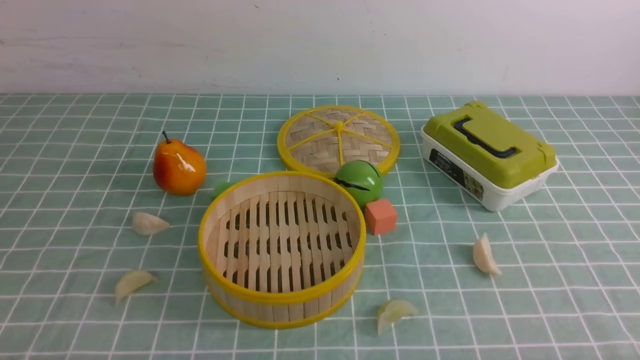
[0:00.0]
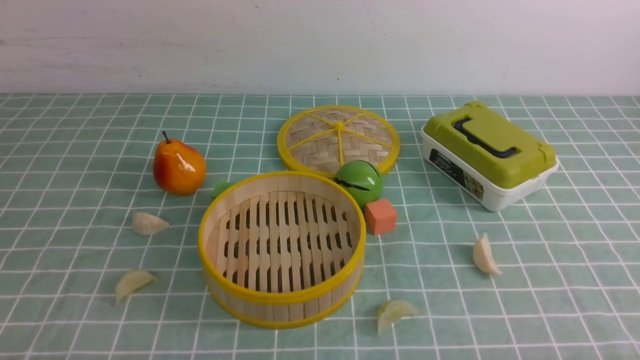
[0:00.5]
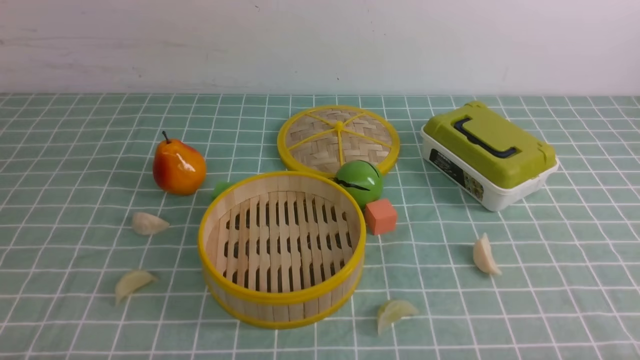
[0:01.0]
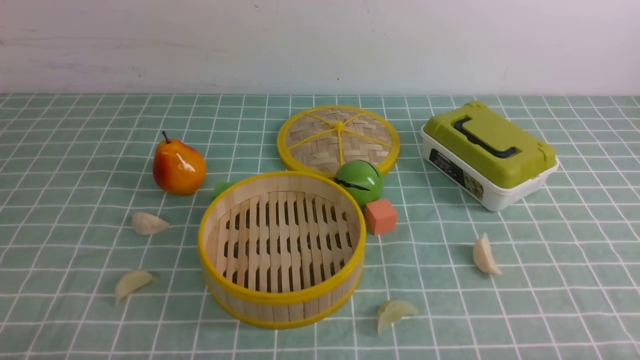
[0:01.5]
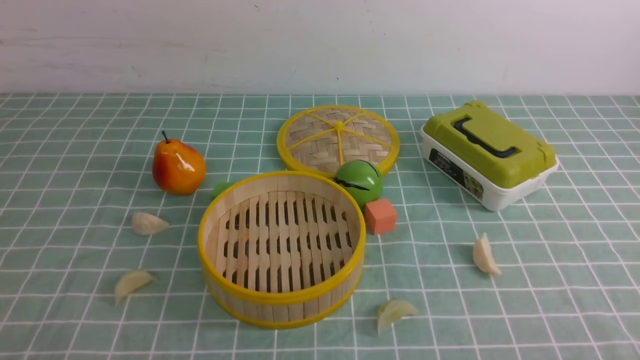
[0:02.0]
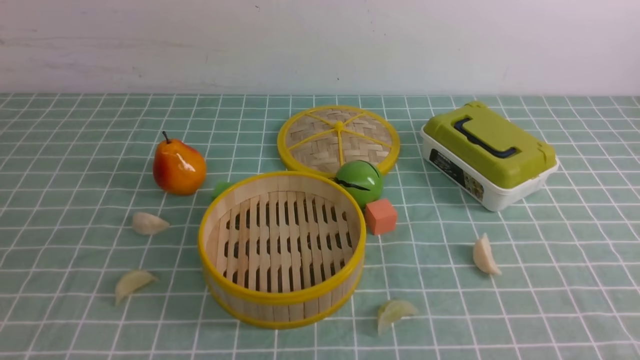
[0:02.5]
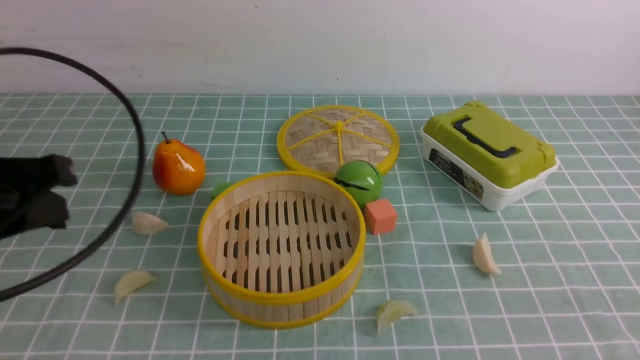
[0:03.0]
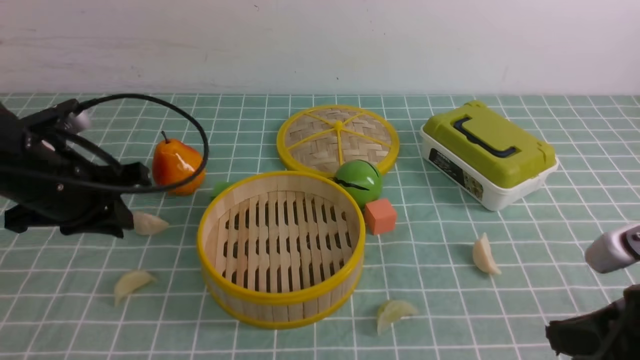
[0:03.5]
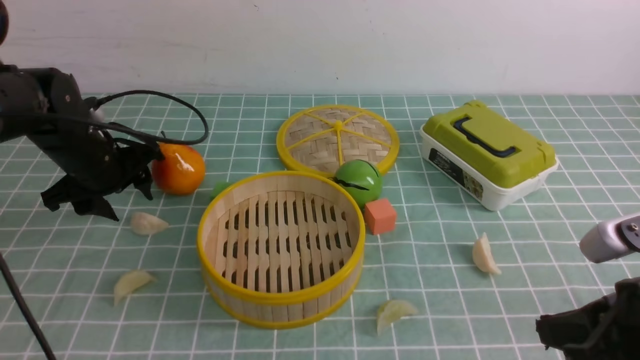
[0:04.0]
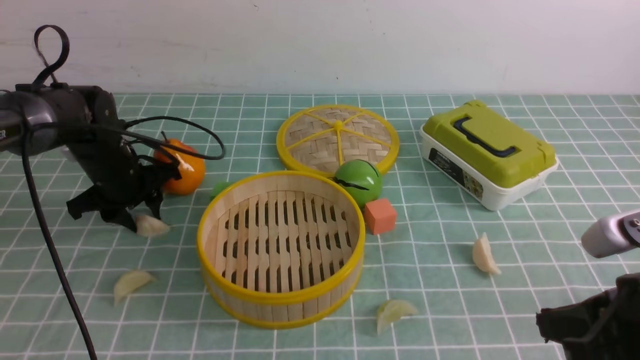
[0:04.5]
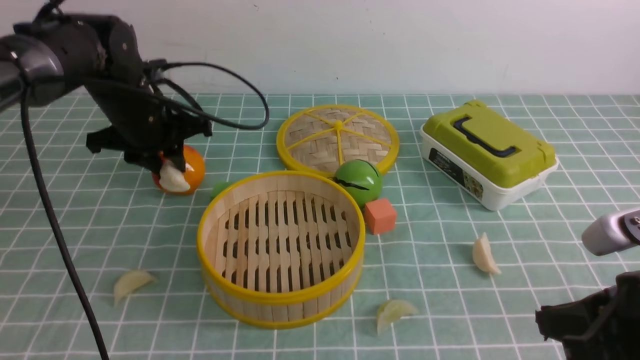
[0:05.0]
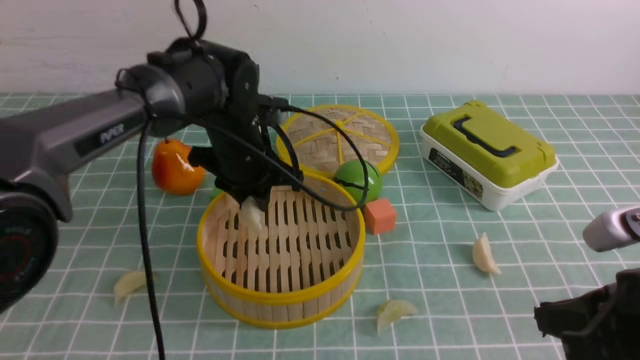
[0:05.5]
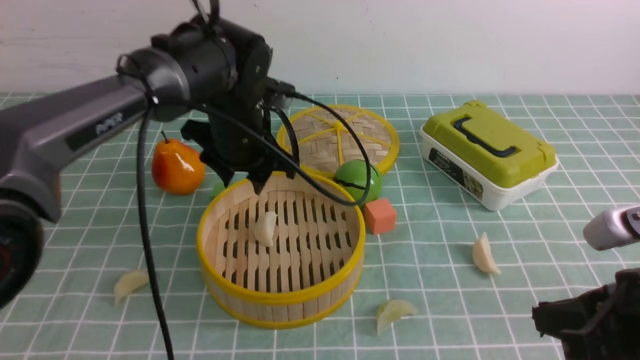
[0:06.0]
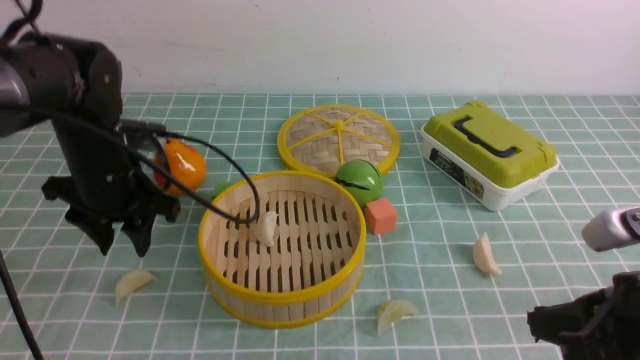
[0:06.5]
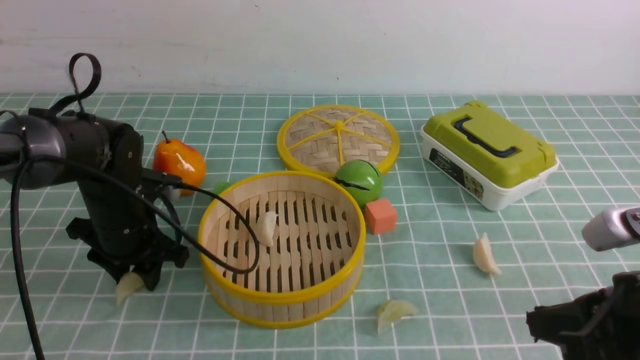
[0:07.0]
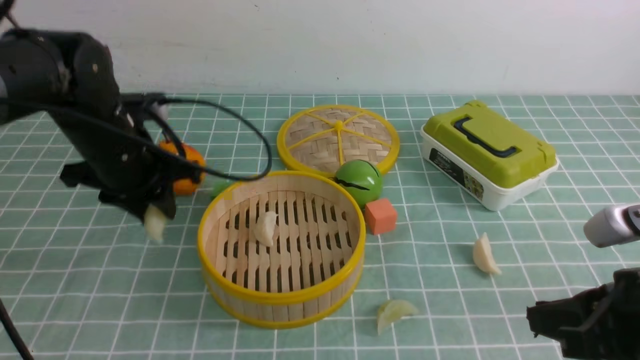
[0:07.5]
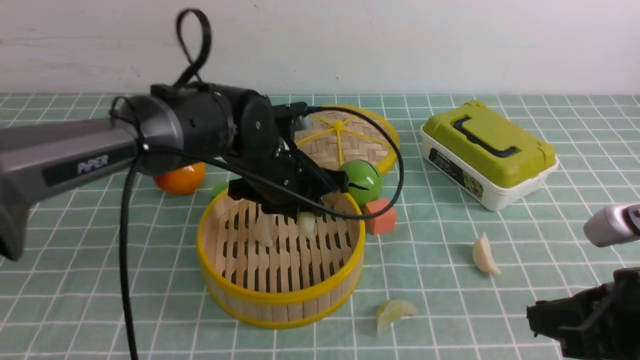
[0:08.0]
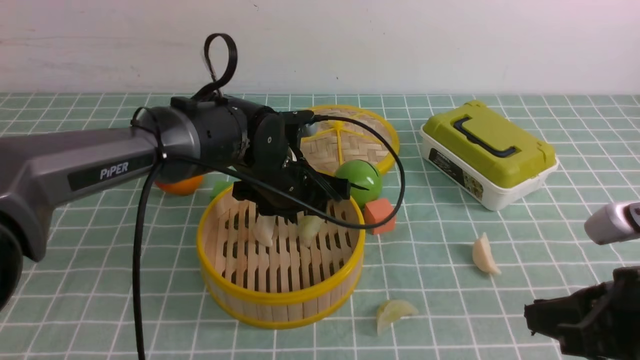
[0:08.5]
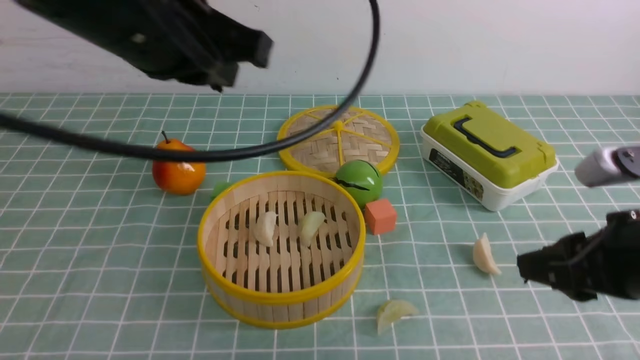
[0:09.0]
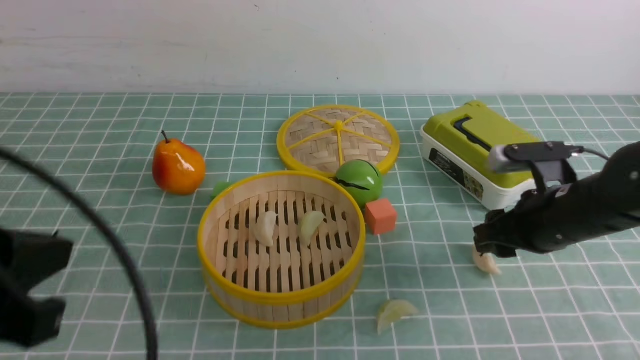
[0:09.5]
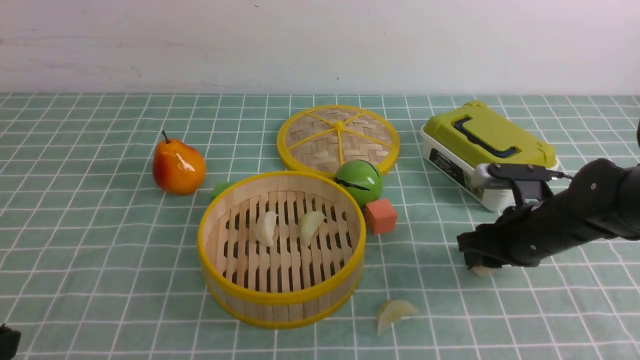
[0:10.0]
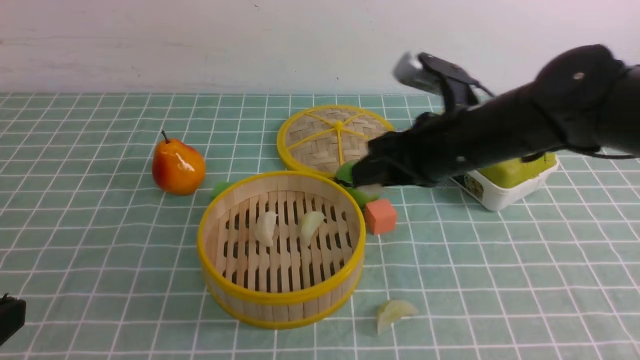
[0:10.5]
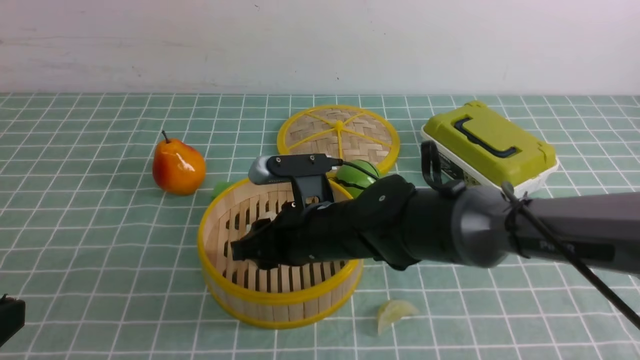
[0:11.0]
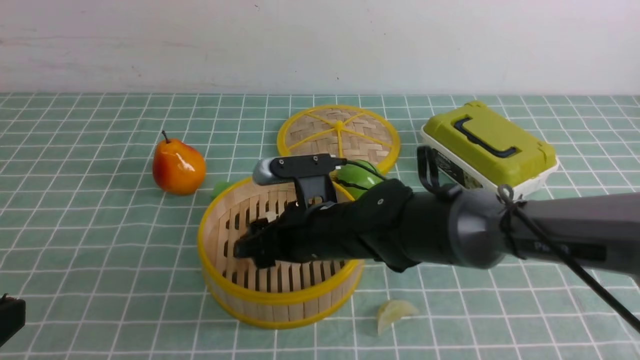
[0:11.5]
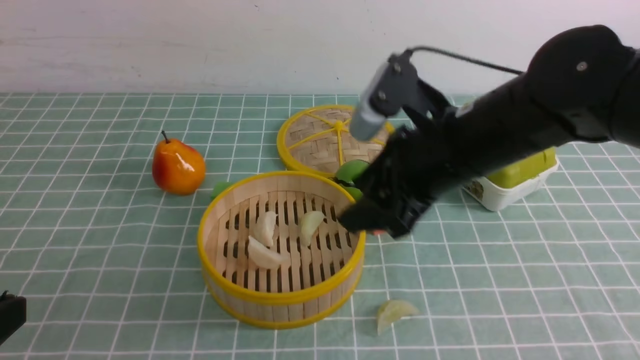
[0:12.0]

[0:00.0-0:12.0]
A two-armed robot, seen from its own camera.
Task of the whole recording: put the dumplings into the steamer on the table with the blue tablecloth.
Step, 0:00.0 to 0:04.5: use the left arm to grab a dumpling.
Step, 0:05.0 to 0:06.0: use the left arm to put the dumpling into the steamer.
Step, 0:06.5 to 0:07.0: use the left arm to grab a dumpling.
Step, 0:07.5 to 0:08.5: use the left arm to put the dumpling into the steamer.
Step, 0:09.0 to 0:09.5: use the right arm to grab a dumpling.
Step, 0:10.0 to 0:11.5: use the right arm to put the dumpling into the steamer.
0:02.0 to 0:04.0: The right gripper moves forward, some 10 cm, and closes. Meanwhile the left gripper shifts about 35 cm forward, and opens up.
0:04.0 to 0:06.0: The left gripper is displaced to the right and upward by some 15 cm, and closes, then reopens.
0:06.0 to 0:08.0: The left gripper travels to the left and back again, roughly 10 cm each way.
0:08.0 to 0:10.0: The right gripper shifts some 20 cm forward and downward, and opens up. The left gripper shifts some 35 cm backward and to the left, and closes up.
0:10.0 to 0:12.0: The right gripper heads to the left and upward, covering roughly 20 cm, and opens its fingers.

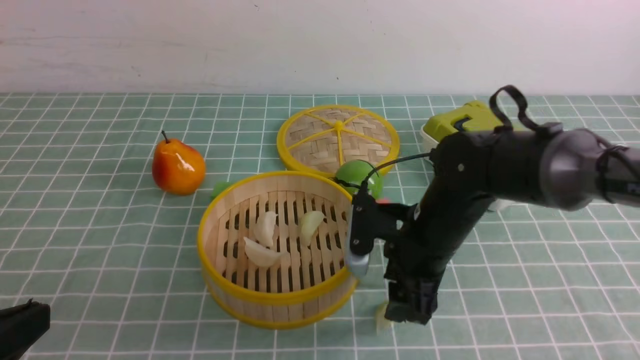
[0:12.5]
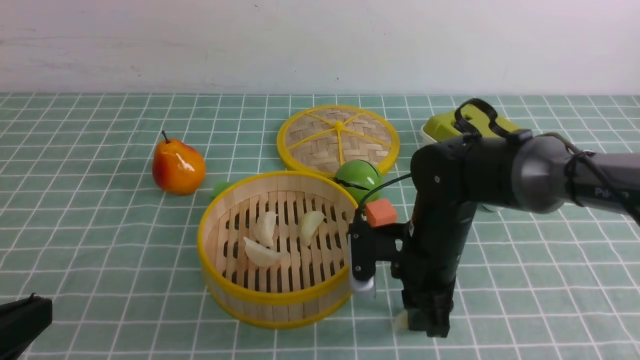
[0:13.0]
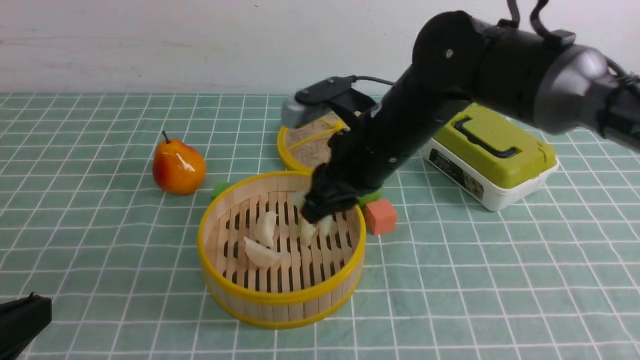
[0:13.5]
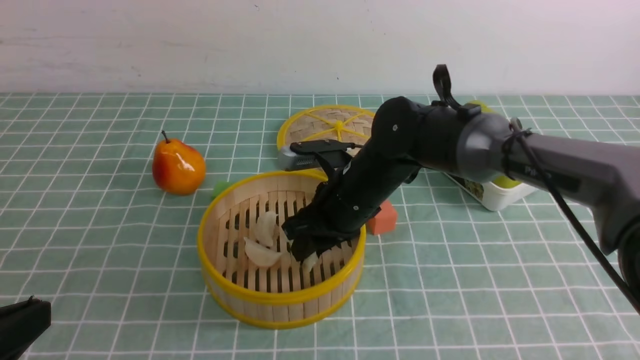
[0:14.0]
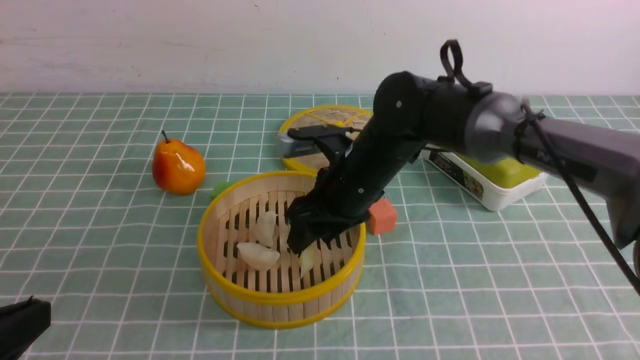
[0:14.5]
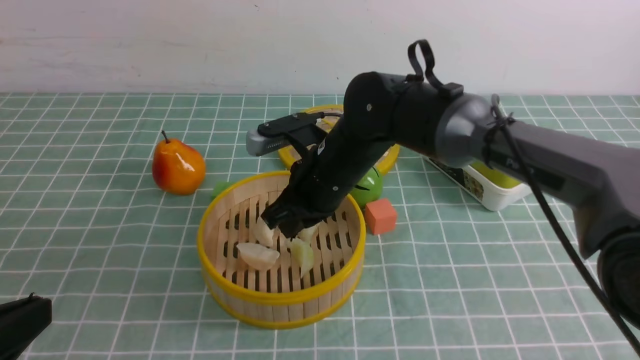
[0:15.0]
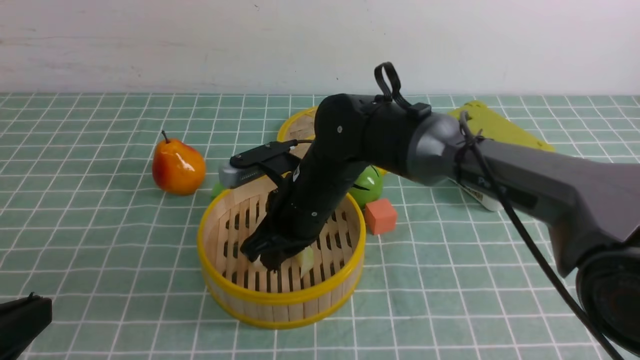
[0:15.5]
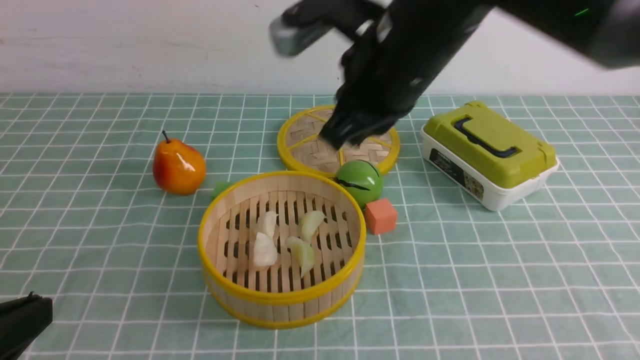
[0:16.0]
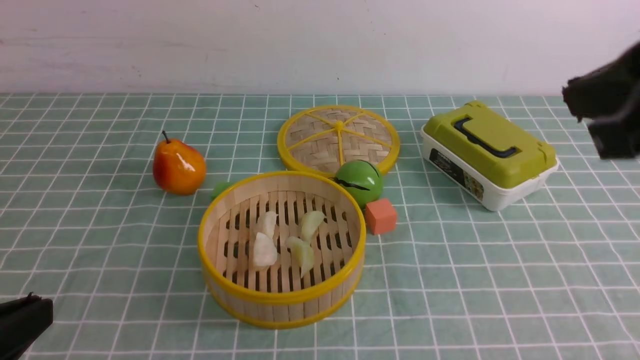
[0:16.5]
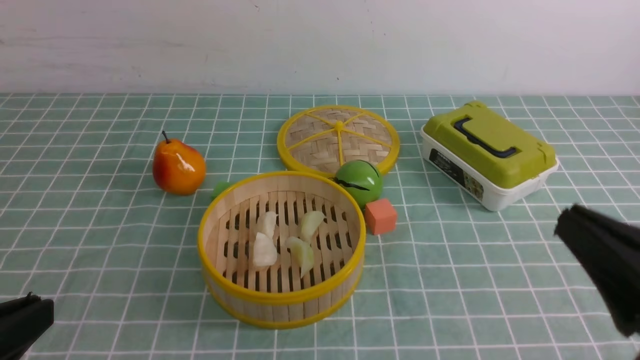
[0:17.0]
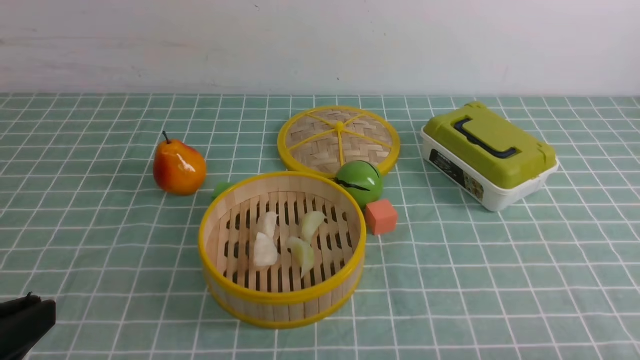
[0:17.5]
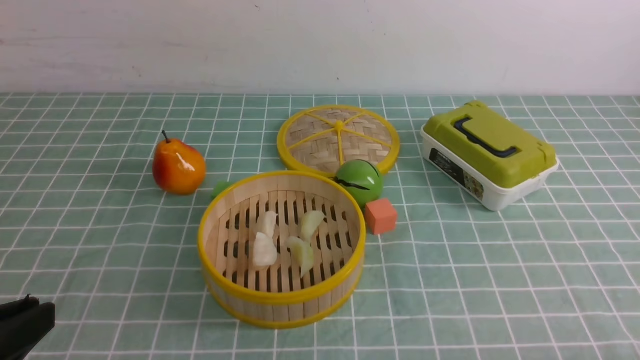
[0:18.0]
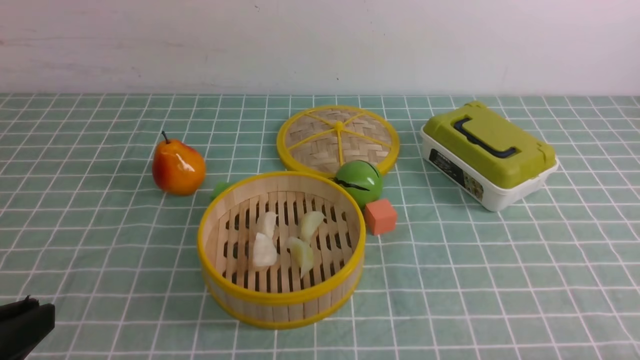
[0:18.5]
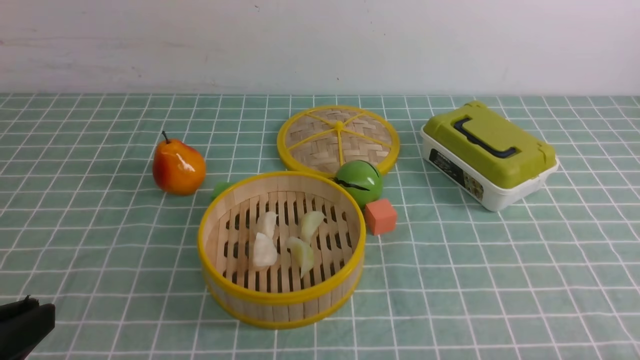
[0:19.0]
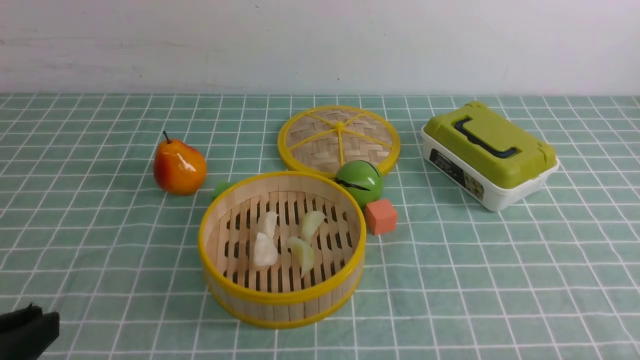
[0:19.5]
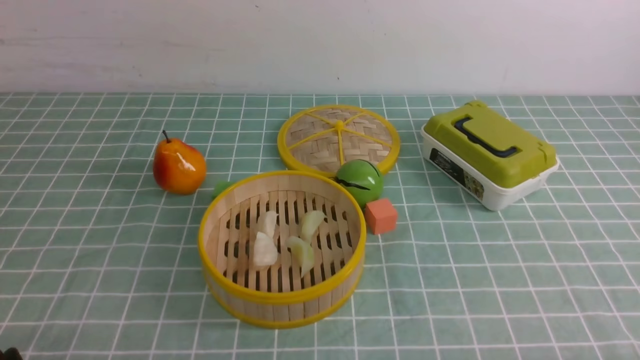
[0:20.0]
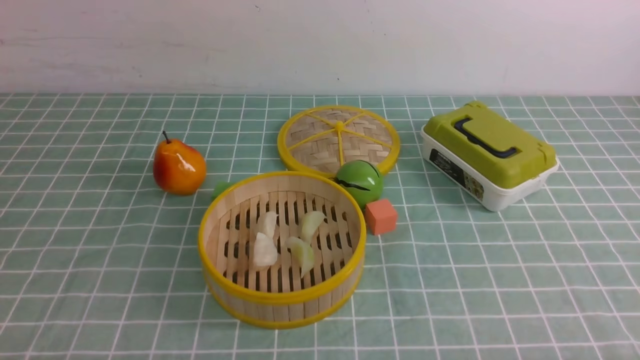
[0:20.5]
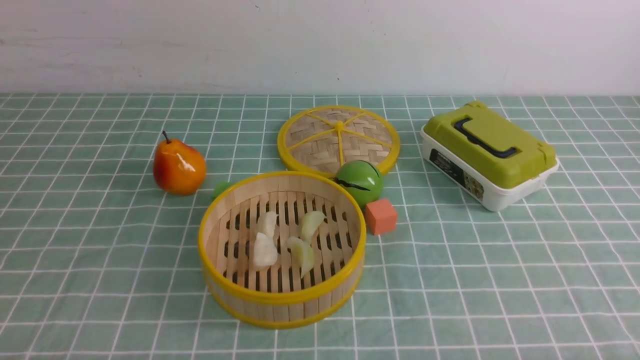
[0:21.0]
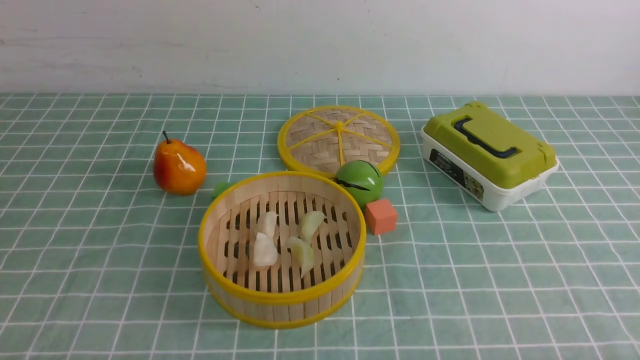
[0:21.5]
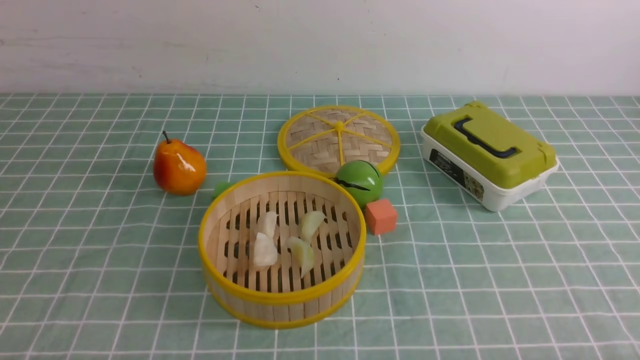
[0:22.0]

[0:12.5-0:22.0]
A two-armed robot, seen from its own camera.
Task of the whole recording: put the dumplings into the steamer on the table with the blue tablecloth.
Step, 0:13.0 to 0:14.5: use the right arm to put the dumpling into the steamer.
0:12.5 to 0:14.5: The right gripper heads to the left and forward, covering about 10 cm, and closes, then opens again.
0:14.5 to 0:16.5: The right gripper heads upward, backward and to the right, covering about 35 cm, and closes.
0:16.5 to 0:18.0: The right gripper is displaced downward and backward by roughly 30 cm.
0:18.0 to 0:20.0: The left gripper is displaced downward by some 10 cm.
